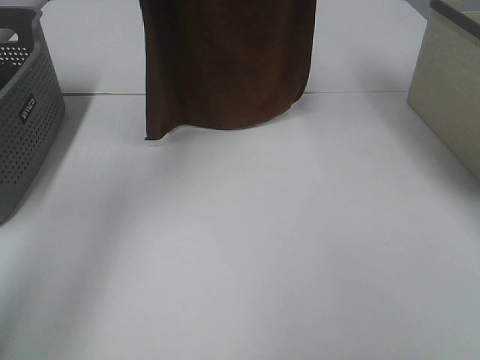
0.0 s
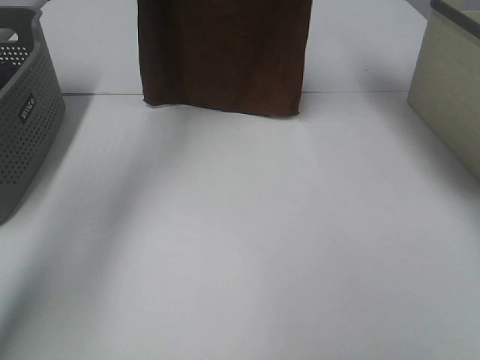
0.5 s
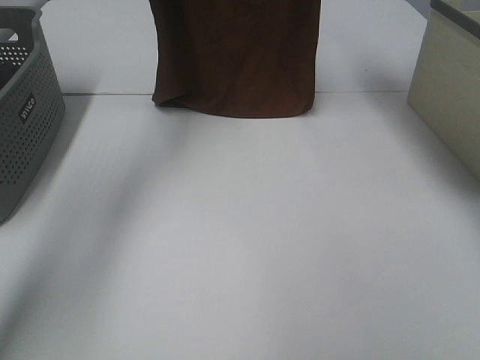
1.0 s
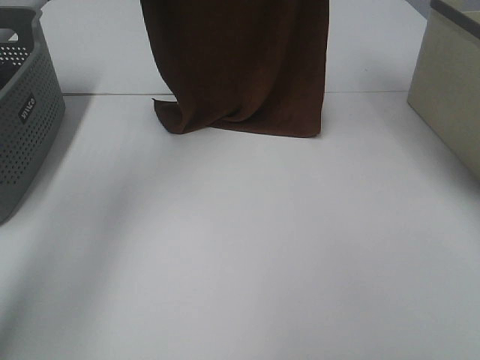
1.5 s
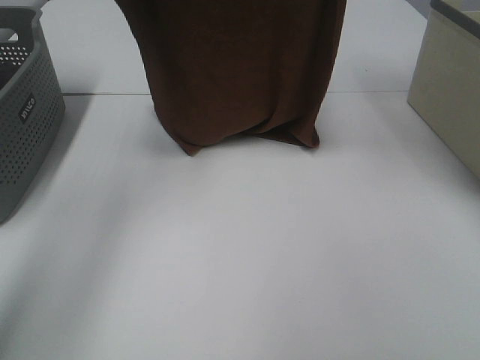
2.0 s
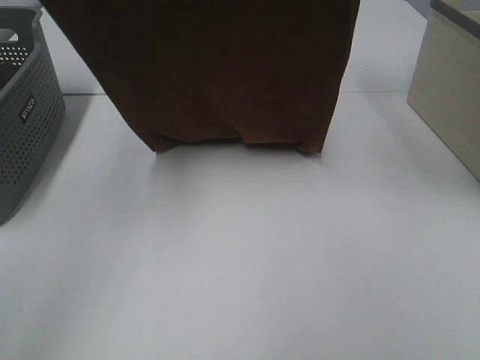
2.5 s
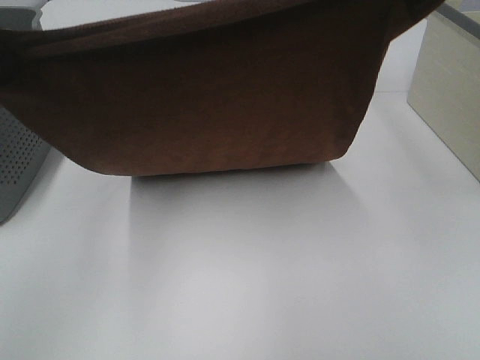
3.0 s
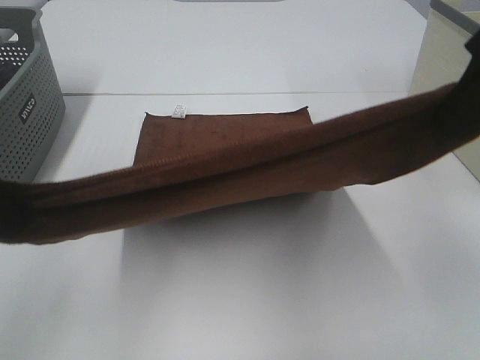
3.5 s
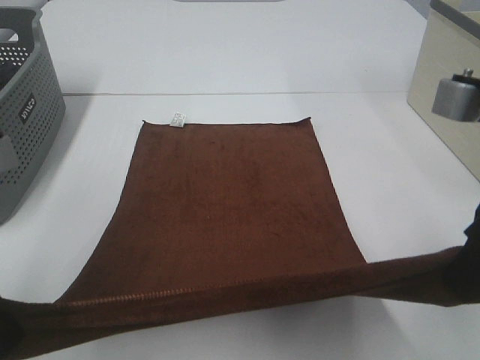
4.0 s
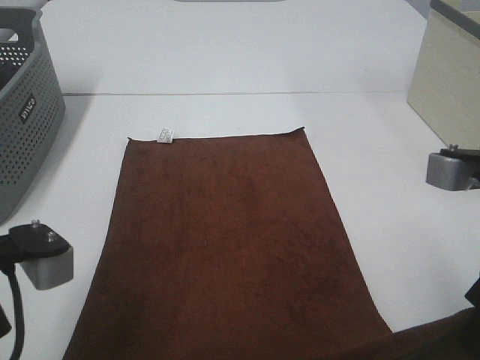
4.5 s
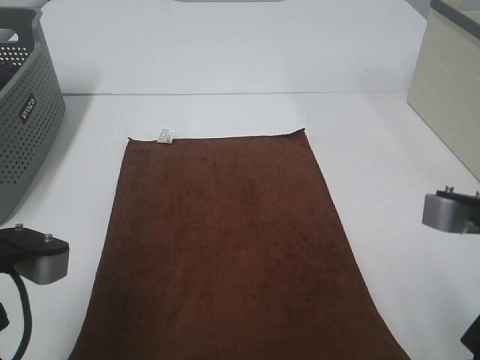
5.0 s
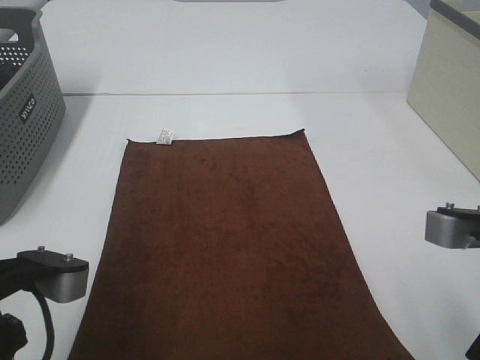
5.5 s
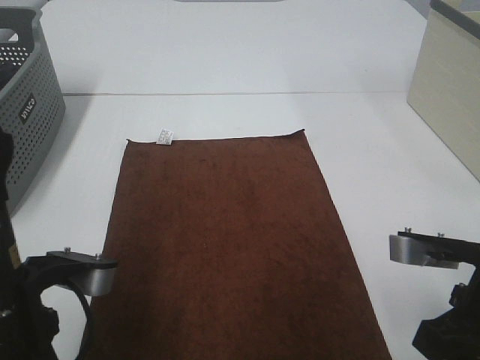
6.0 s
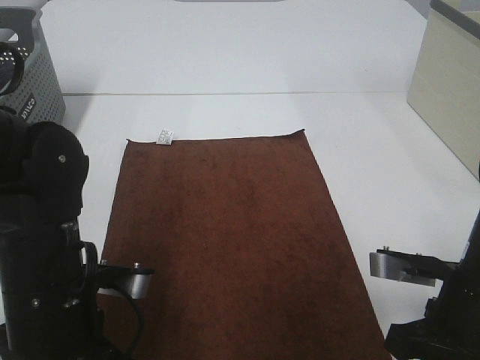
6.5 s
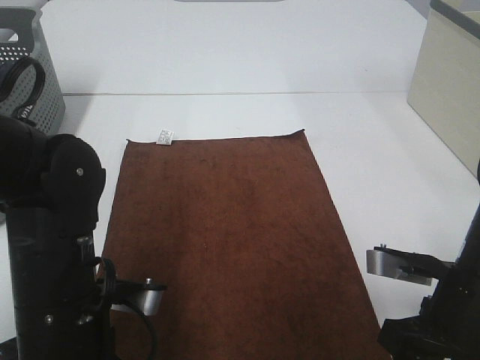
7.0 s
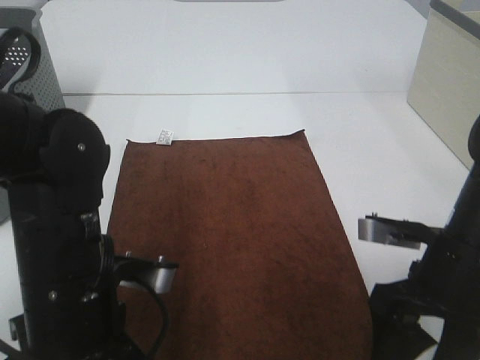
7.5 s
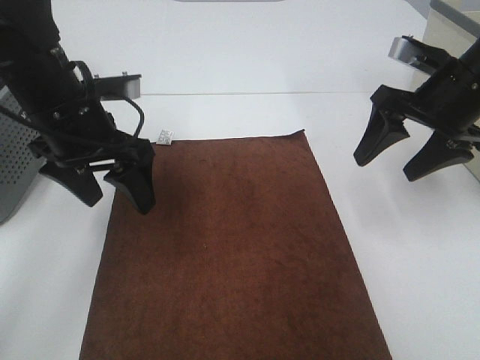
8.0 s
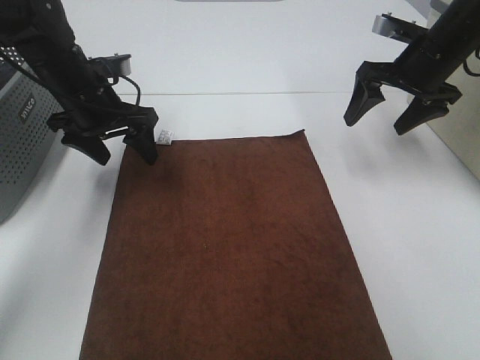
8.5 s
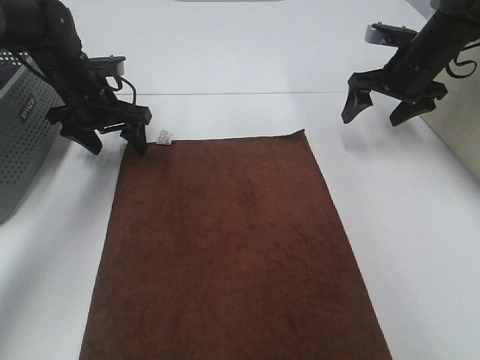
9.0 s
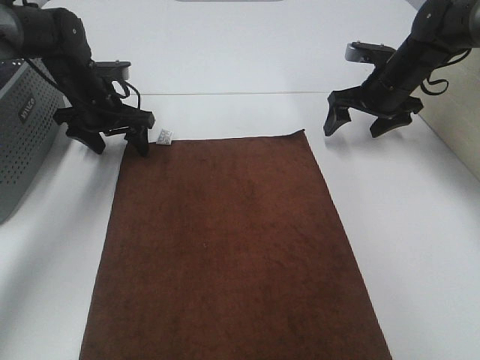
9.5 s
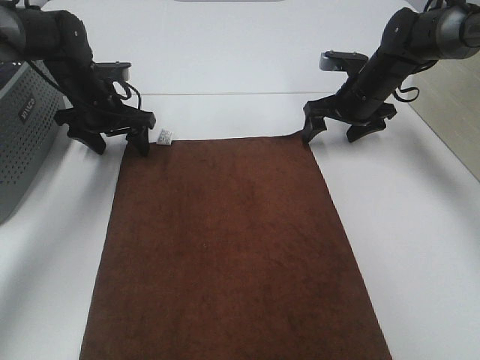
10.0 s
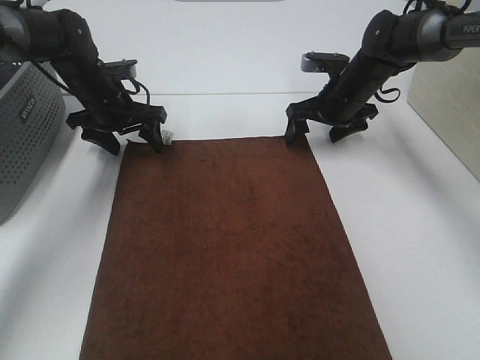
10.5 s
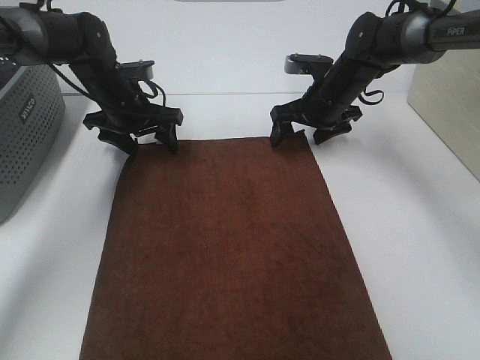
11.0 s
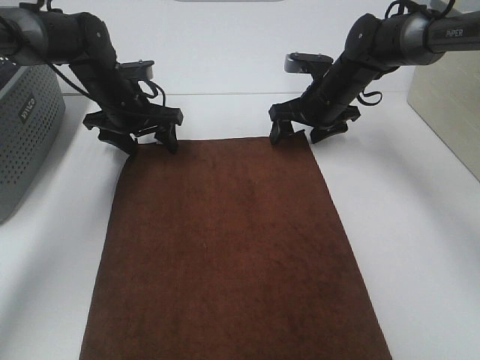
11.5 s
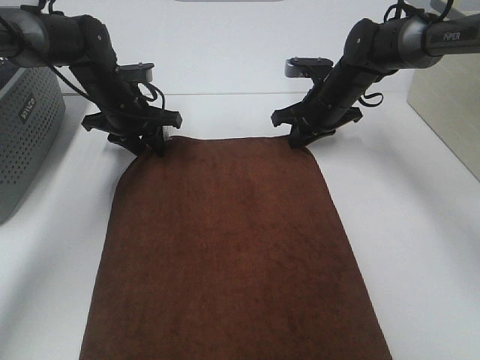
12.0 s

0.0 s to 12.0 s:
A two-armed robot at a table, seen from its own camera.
Task of the whole recording: Remove the towel and place it.
Step, 0.0 to 3.0 s: Left hand: spread the brown towel flat on the table.
Step, 0.0 to 3.0 s: Right hand: spread the brown towel flat on the table.
Step, 3.5 to 11.5 s: Left hand:adjust the brown towel.
0.0 to 2.0 s: The right gripper moves about 5 cm. The left gripper goes approximately 5 cm downward, and reaches some 5 cm forward, then returns.
2.0 to 4.0 s: Both grippers travel together backward and downward, roughly 30 cm.
4.0 to 6.0 s: The right gripper shifts roughly 10 cm downward, while the left gripper goes about 10 cm downward and to the right.
6.0 to 8.0 s: The grippers both shift forward by approximately 20 cm. The left gripper opens up. Meanwhile the right gripper opens up.
8.0 to 10.0 s: The grippers both shift forward and downward by about 20 cm.
10.0 to 12.0 s: The left gripper closes its fingers; the right gripper heads to the left, covering some 5 cm, and closes up.

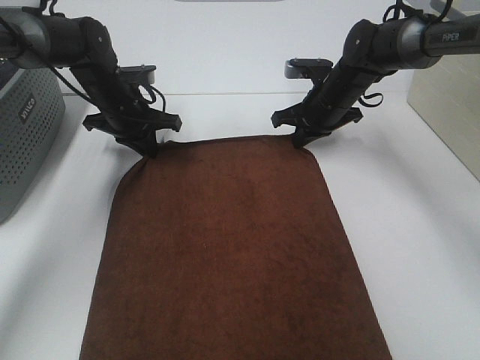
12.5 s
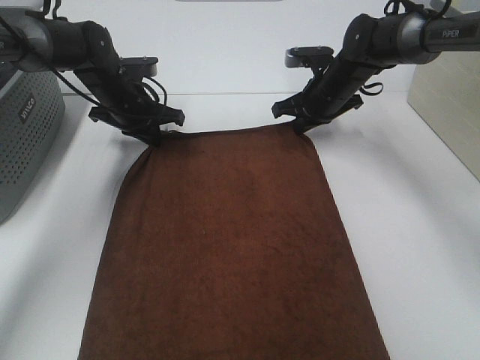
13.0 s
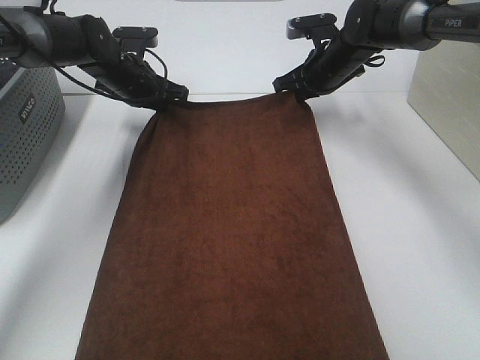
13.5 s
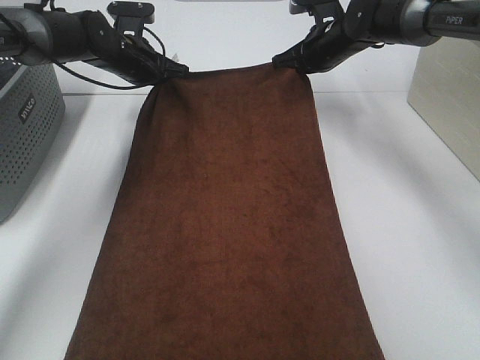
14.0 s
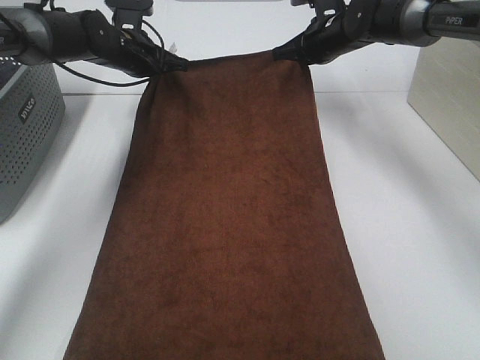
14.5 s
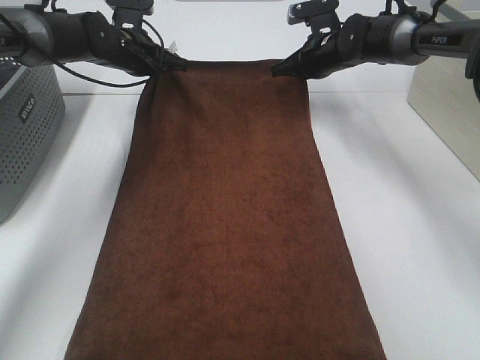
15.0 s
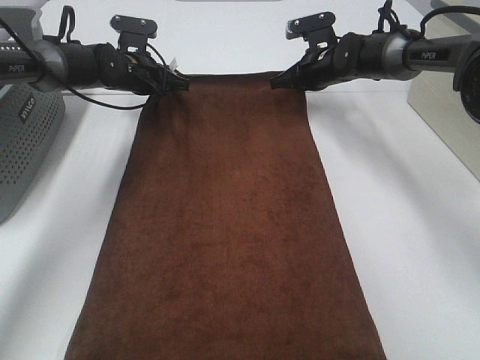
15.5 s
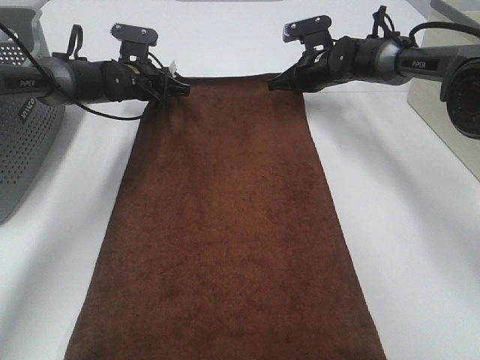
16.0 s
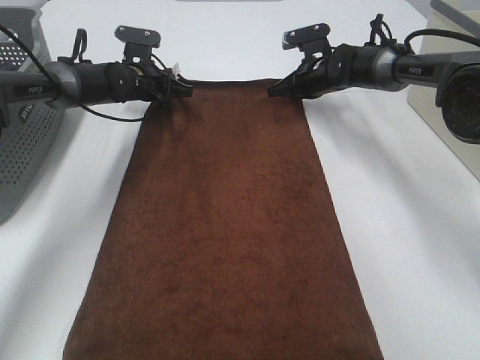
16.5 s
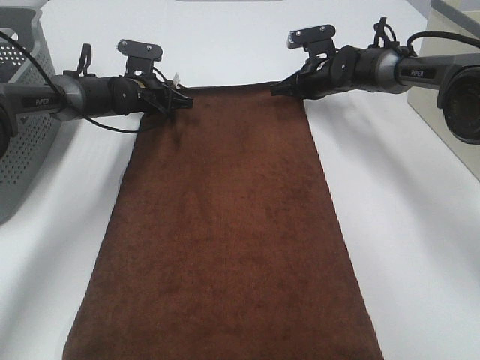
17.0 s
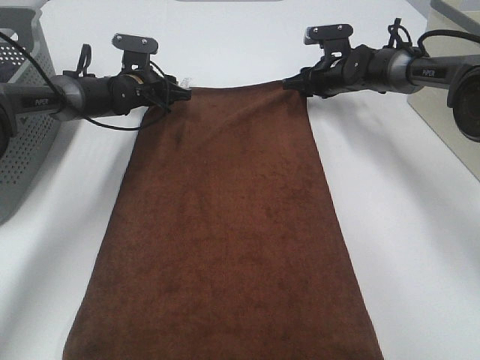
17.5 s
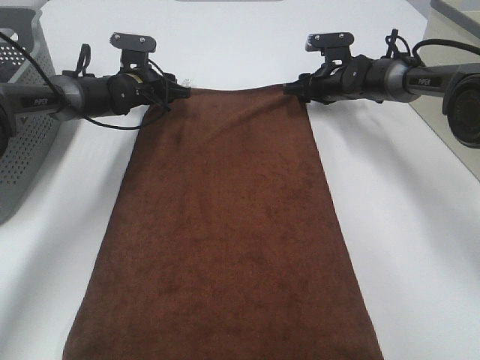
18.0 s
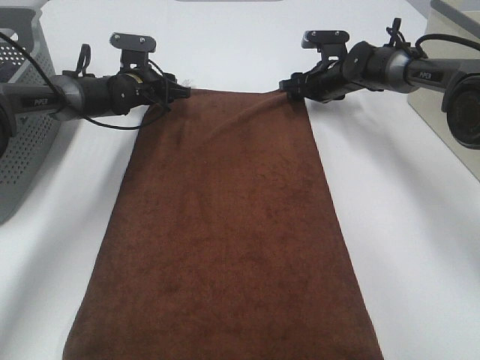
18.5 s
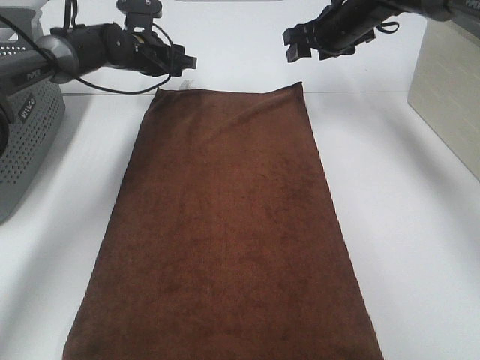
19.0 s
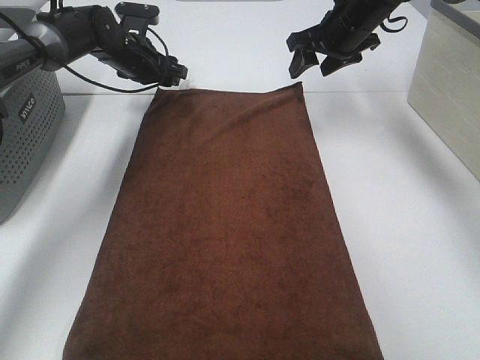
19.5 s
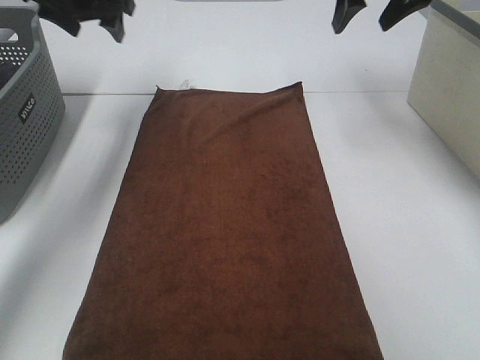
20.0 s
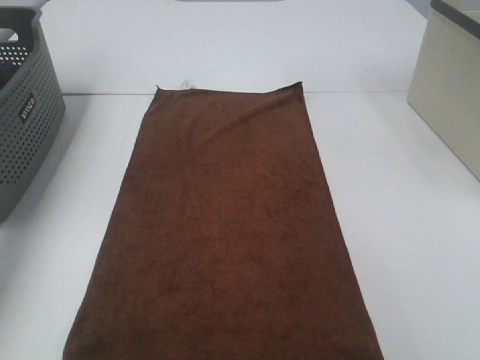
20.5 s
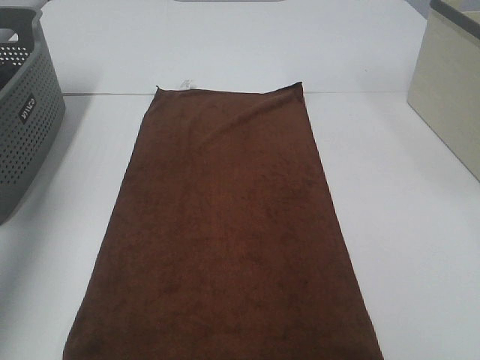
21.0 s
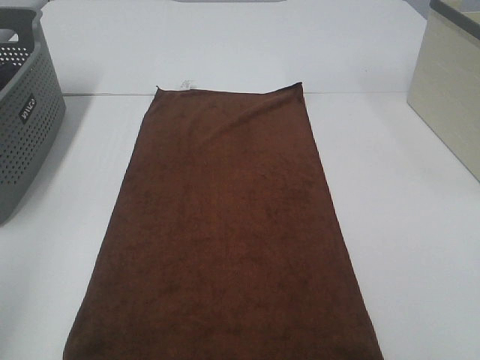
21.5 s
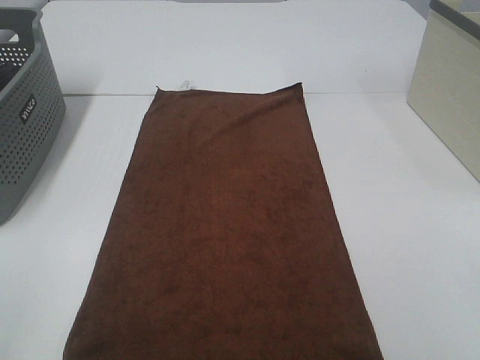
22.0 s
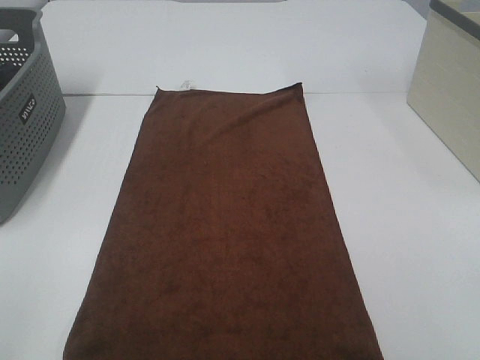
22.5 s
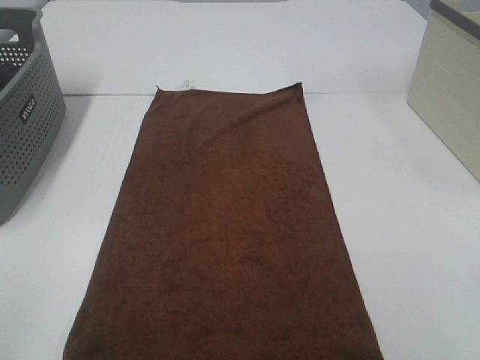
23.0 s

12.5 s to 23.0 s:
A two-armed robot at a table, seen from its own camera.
Task of the whole recording: Remove the towel and place it.
12.5 to 14.5 s: The left gripper heads forward, covering approximately 5 cm, while the right gripper heads upward and forward, covering about 10 cm.
14.5 to 16.5 s: The grippers both shift downward by about 5 cm.
16.5 to 19.0 s: The left gripper shifts about 5 cm upward, and opens up; the right gripper heads upward, covering about 10 cm, and opens its fingers.
19.0 to 21.0 s: The left gripper goes roughly 50 cm backward, upward and to the left, while the right gripper travels backward and upward by approximately 40 cm.
21.0 to 23.0 s: The left gripper is displaced backward and downward by approximately 25 cm.

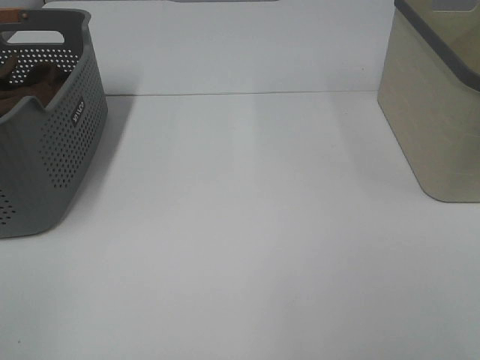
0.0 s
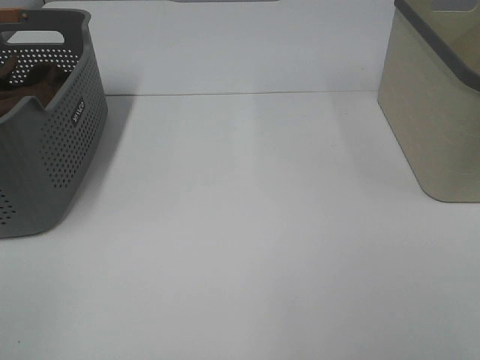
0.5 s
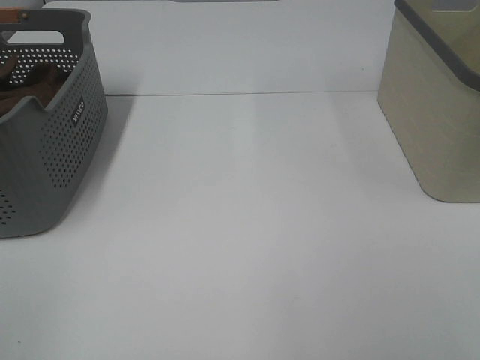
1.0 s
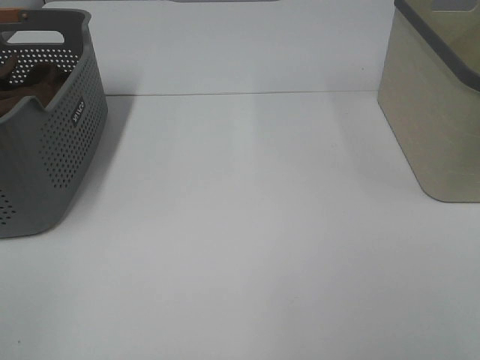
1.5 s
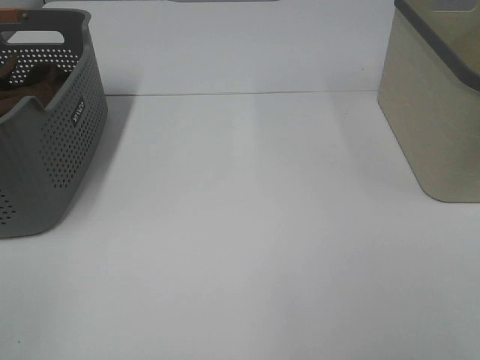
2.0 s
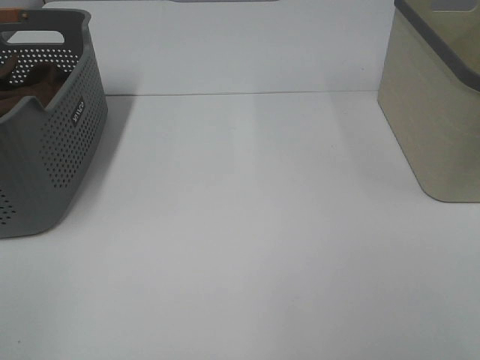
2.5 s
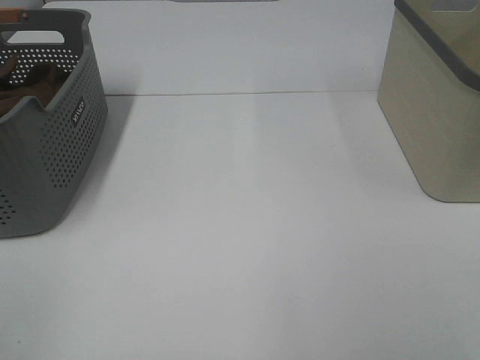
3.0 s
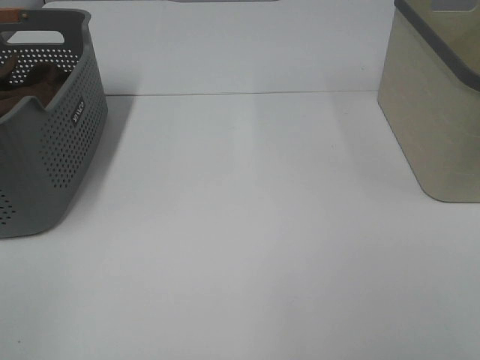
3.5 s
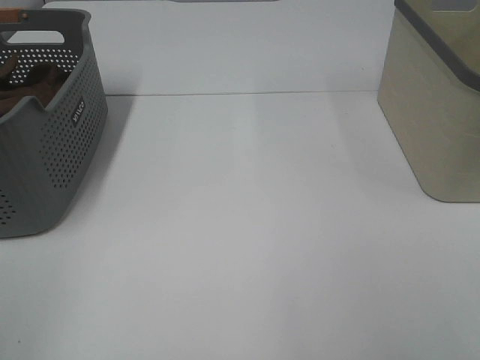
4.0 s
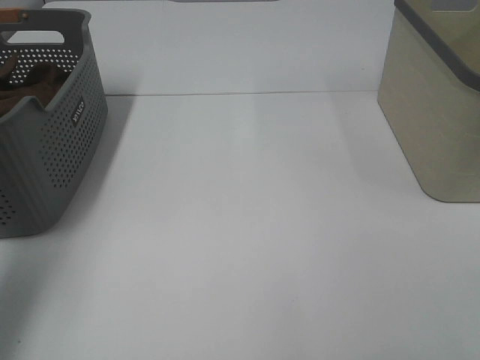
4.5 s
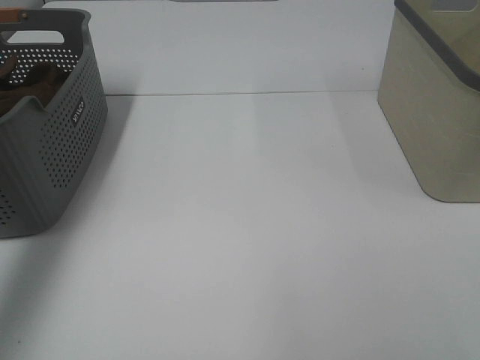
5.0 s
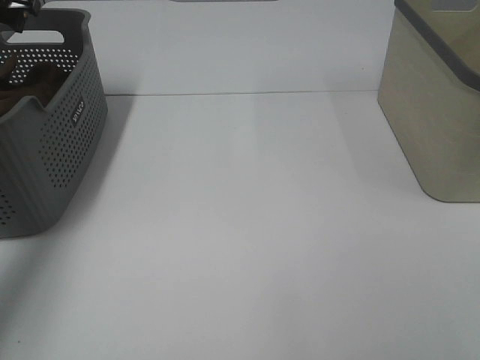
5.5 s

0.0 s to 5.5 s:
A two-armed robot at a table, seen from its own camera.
Task of the whole recording: Remove the towel and place it.
0.0 to 3.5 s: The two grippers keep their place.
3.5 to 5.5 s: The left gripper moves forward, some 50 cm.
